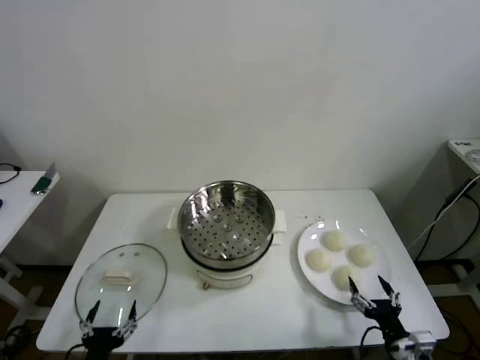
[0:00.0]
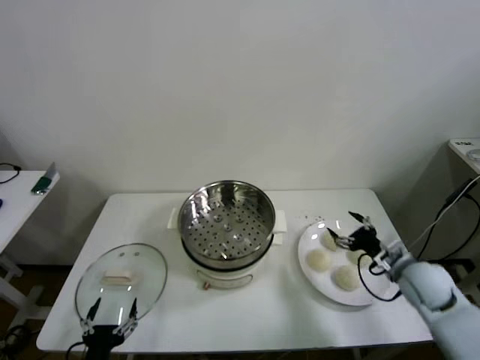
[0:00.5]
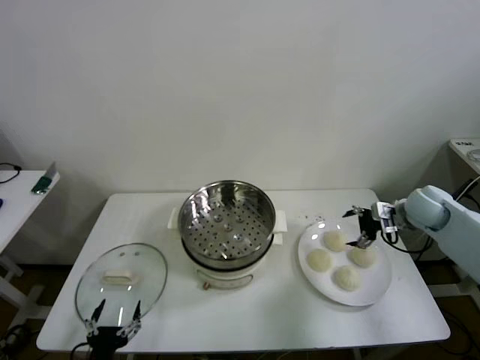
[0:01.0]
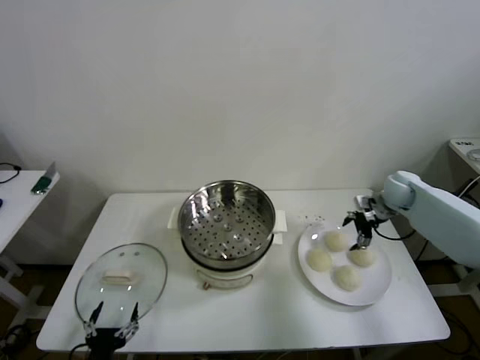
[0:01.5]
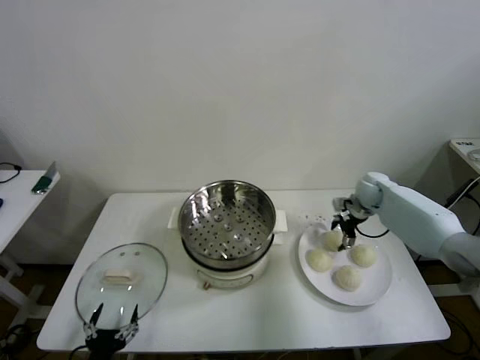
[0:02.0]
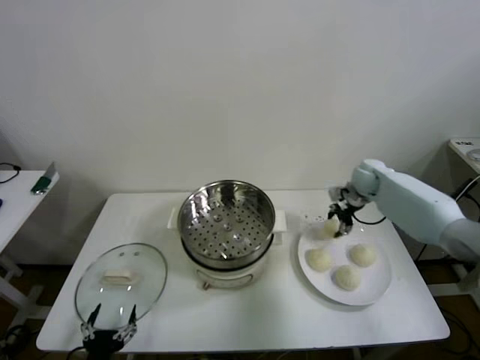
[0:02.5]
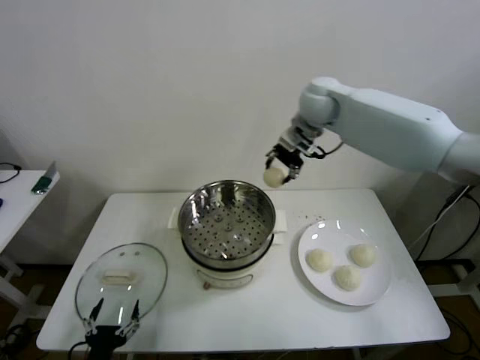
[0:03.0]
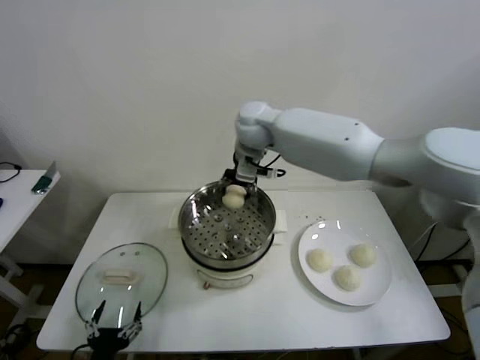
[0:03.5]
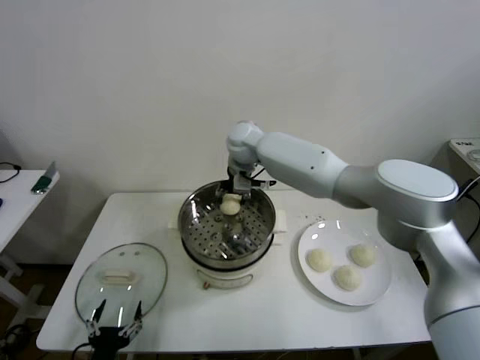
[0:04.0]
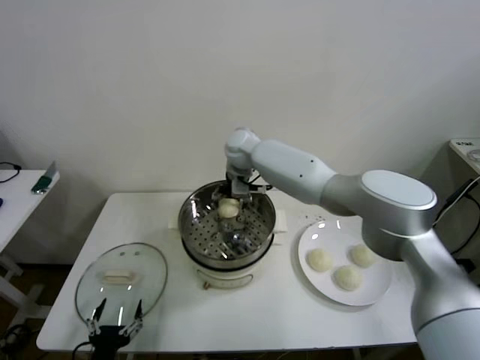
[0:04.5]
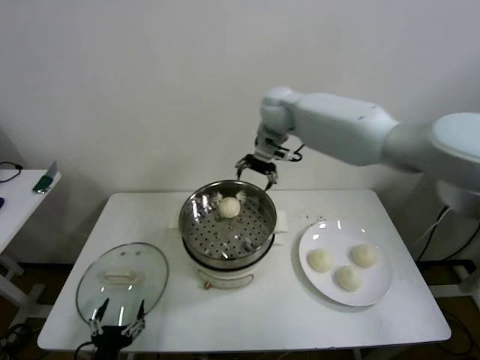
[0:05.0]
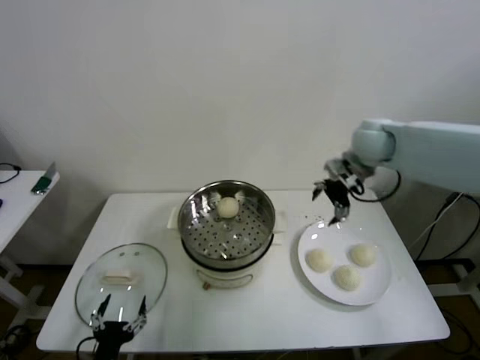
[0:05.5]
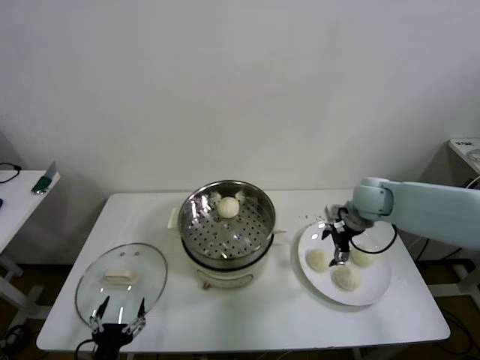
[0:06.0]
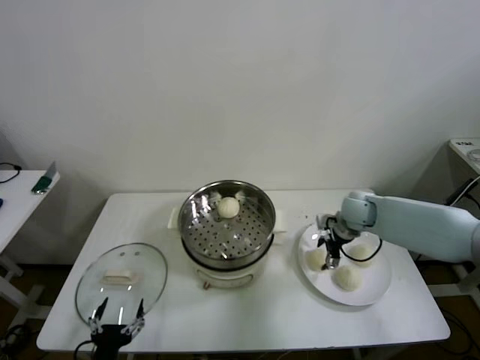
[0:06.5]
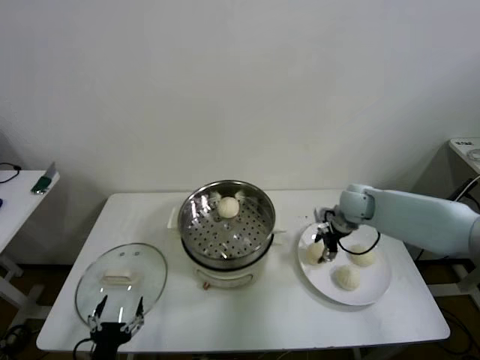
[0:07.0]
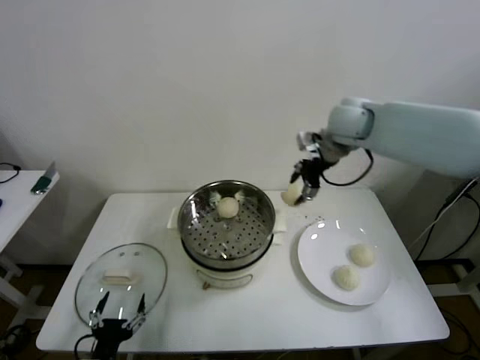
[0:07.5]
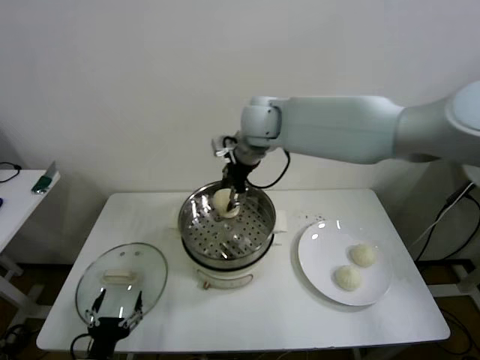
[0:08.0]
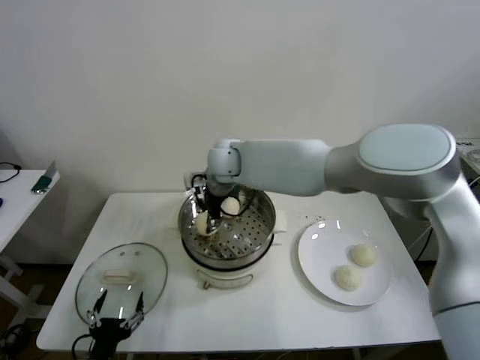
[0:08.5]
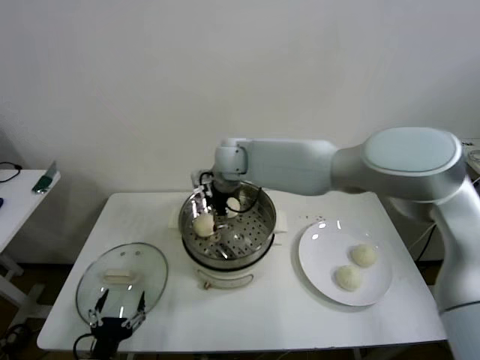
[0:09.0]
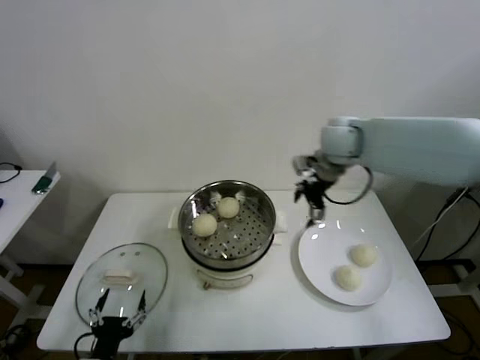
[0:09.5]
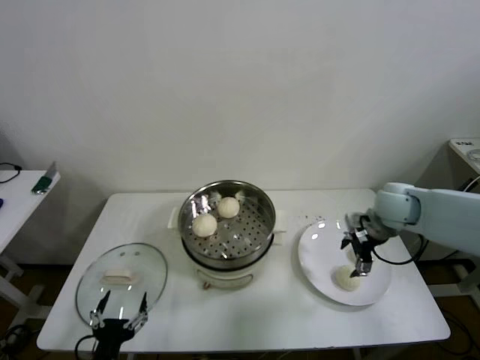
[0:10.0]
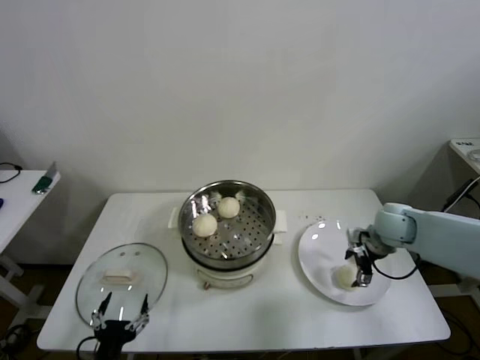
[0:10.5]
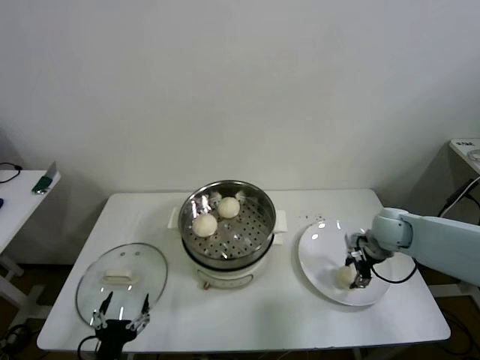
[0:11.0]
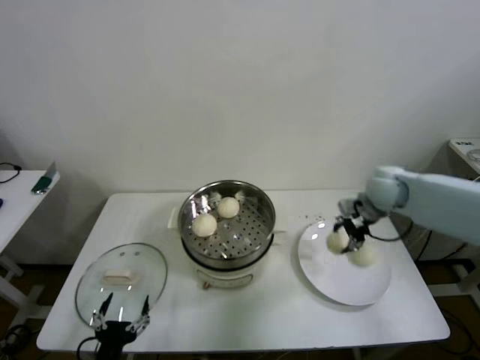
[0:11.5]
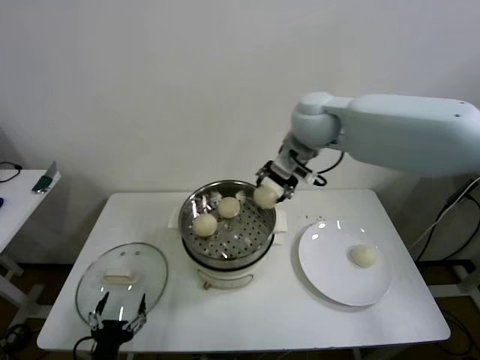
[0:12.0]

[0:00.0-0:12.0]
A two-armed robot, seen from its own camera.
Step, 0:00.0 to 0:02.0: Grasp the baozi in the plate with right gripper.
Step, 0:02.5 to 0:04.0: Place the baozi on the steamer with right gripper.
Step, 0:05.0 to 0:06.5: Grasp the baozi in the plate with right gripper.
Step, 0:07.0 to 0:08.5: Place the baozi on the steamer with right gripper.
Step, 0:09.0 to 0:10.5: Grasp the baozi in the plate with right gripper.
0:02.0 to 0:04.0: The right gripper travels to the left and upward by about 40 cm, and closes.
0:04.0 to 0:06.0: The right gripper travels to the right by roughly 30 cm, and opens its fingers.
0:06.0 to 0:08.0: The right gripper travels to the left and upward by about 35 cm, and closes.
0:08.0 to 0:10.0: The right gripper travels to the right and downward by about 35 cm, and opens its fingers.
0:10.0 to 0:12.0: The right gripper shifts some 30 cm to the left and upward, and closes.

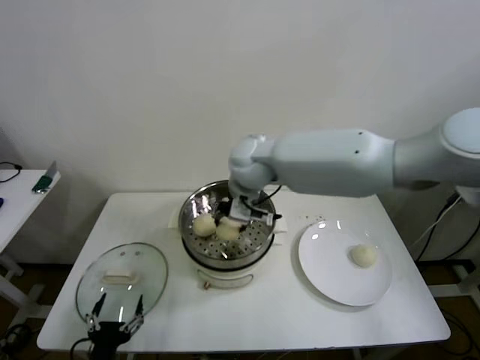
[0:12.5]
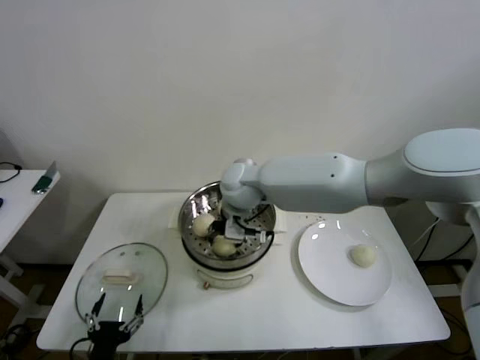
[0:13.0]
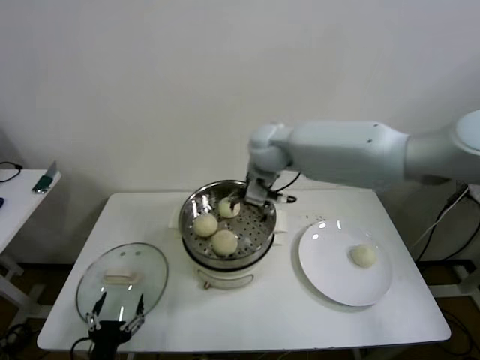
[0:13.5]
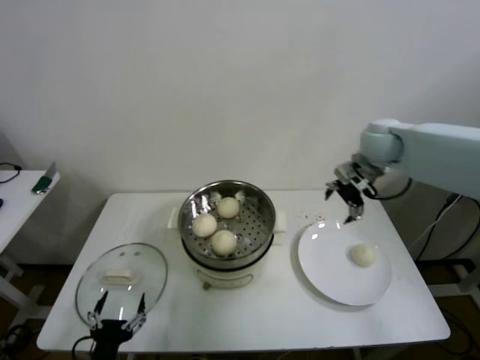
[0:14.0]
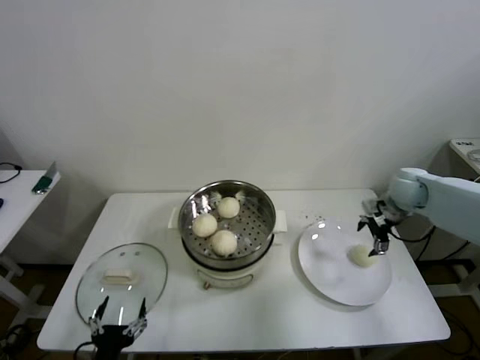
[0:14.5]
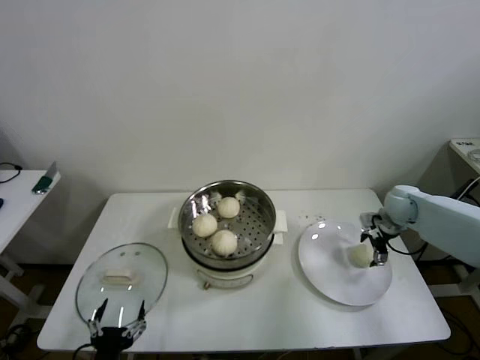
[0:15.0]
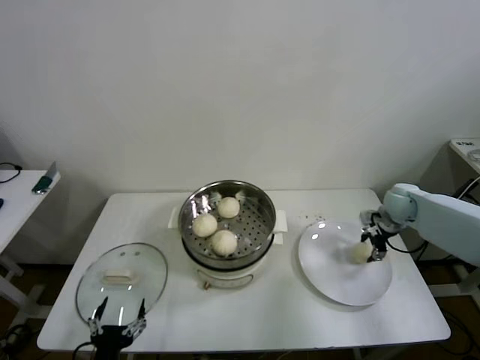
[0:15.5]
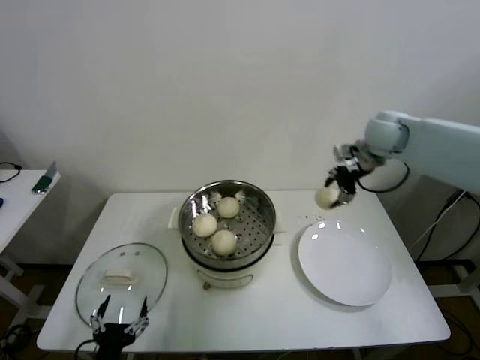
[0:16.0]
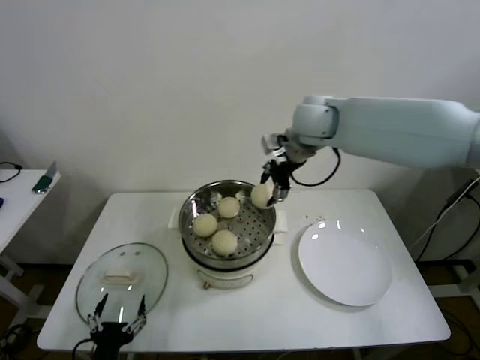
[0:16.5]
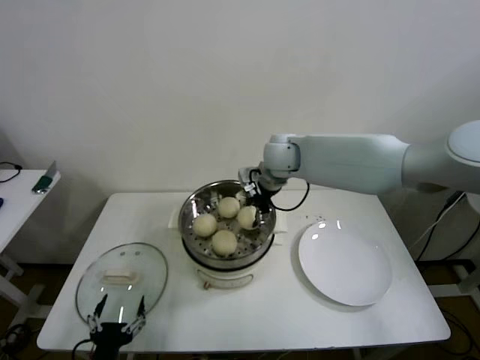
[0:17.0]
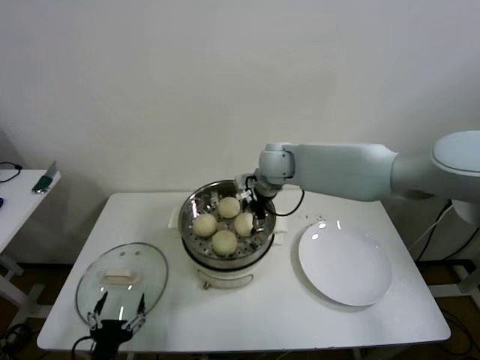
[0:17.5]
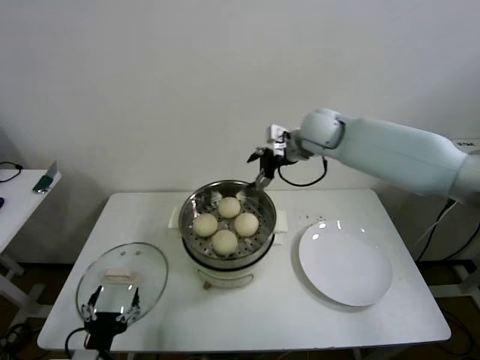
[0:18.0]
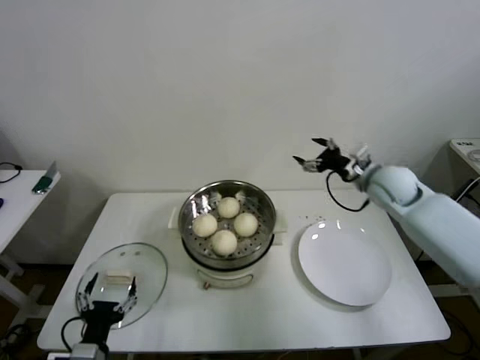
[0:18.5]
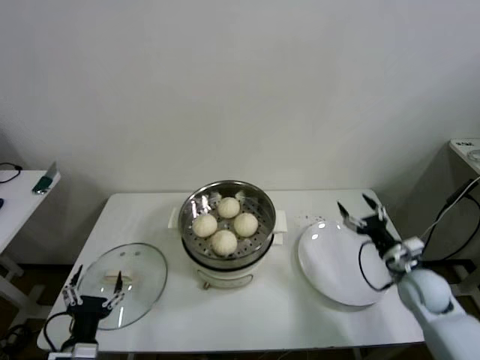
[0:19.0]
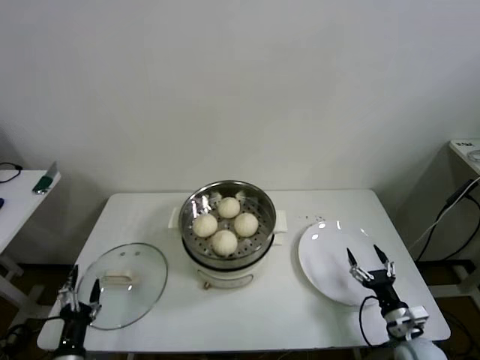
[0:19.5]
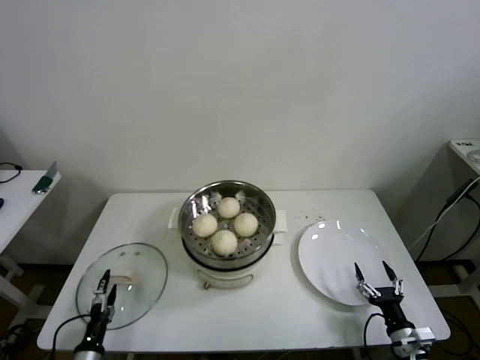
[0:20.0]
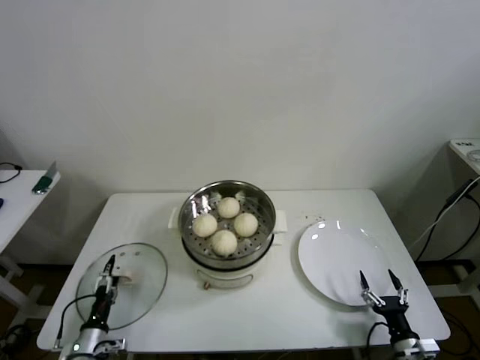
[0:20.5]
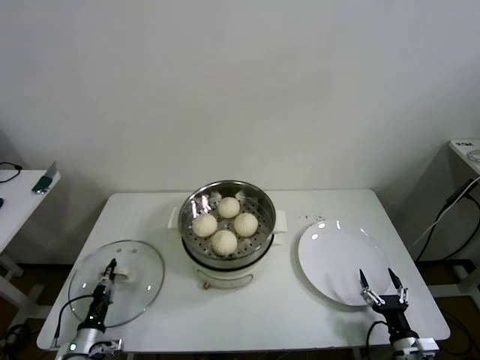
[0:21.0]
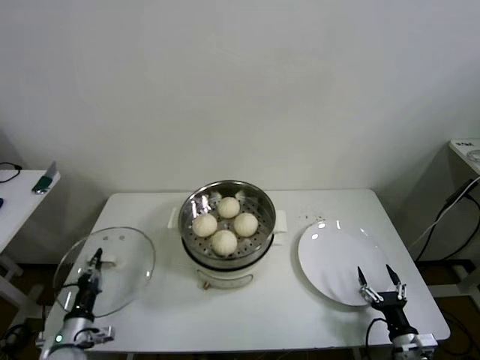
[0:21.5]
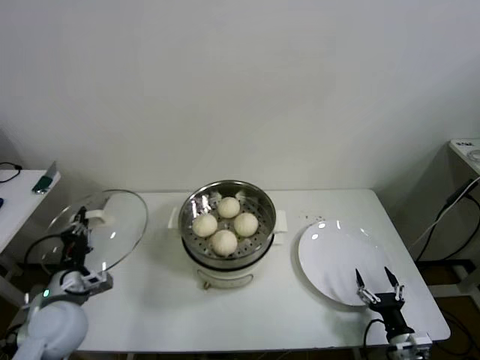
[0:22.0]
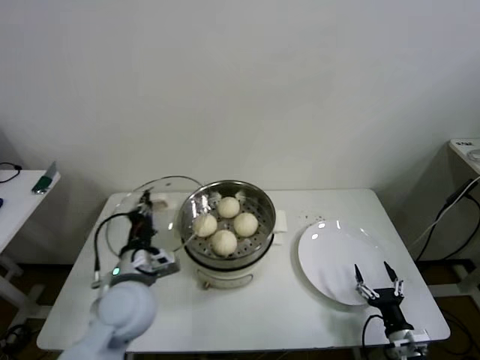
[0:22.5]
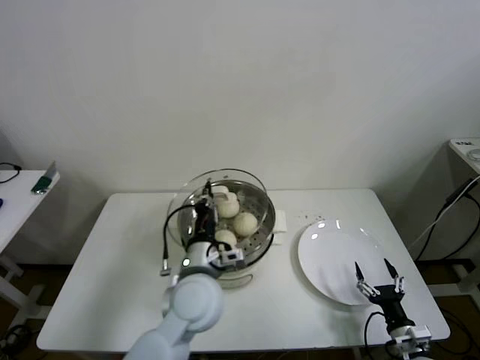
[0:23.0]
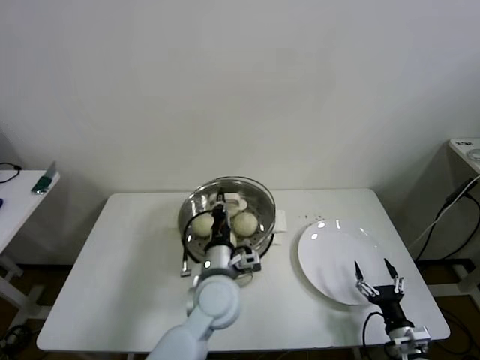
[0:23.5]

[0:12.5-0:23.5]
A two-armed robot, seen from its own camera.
Step, 0:13.5 to 0:15.0: Grasp the baozi in the plate with right gripper.
Step, 0:15.5 to 0:17.0: Place the baozi on the steamer with right gripper.
Step, 0:17.5 to 0:21.0: Grasp the pot lid with left gripper.
0:12.5 to 0:14.5: The right gripper moves to the right, about 40 cm, and opens up.
0:14.5 to 0:16.0: The right gripper travels upward and to the left by roughly 20 cm, and closes.
0:16.0 to 0:18.0: The right gripper shifts approximately 15 cm to the left, and opens.
0:18.0 to 0:20.0: The right gripper shifts approximately 60 cm downward, backward and to the right, while the left gripper travels downward and to the left by some 15 cm.
0:20.0 to 0:21.5: The left gripper goes roughly 5 cm forward, and closes.
0:21.5 to 0:23.5: The left gripper shifts roughly 40 cm to the right and upward.

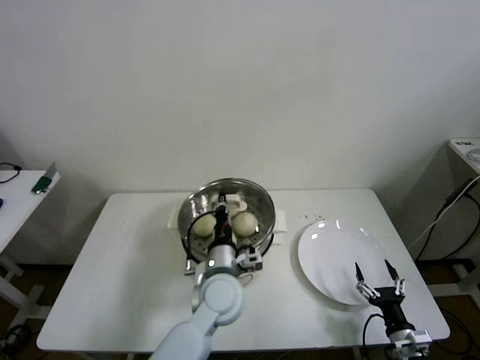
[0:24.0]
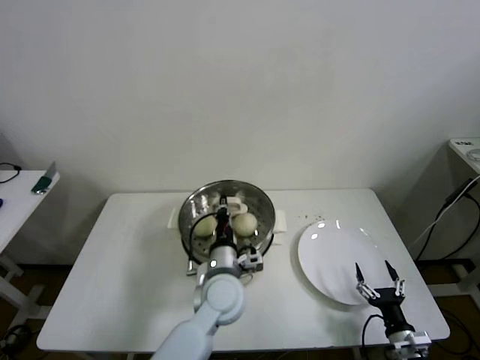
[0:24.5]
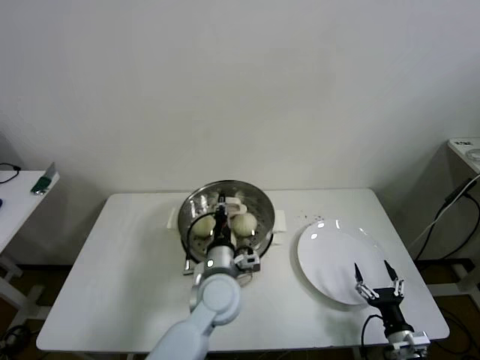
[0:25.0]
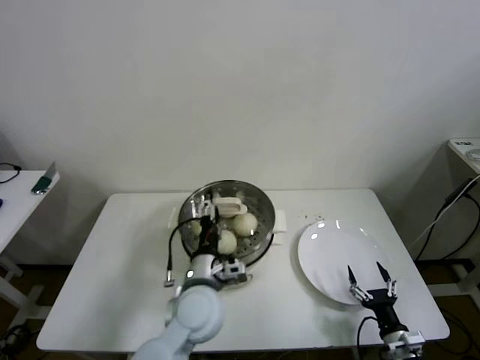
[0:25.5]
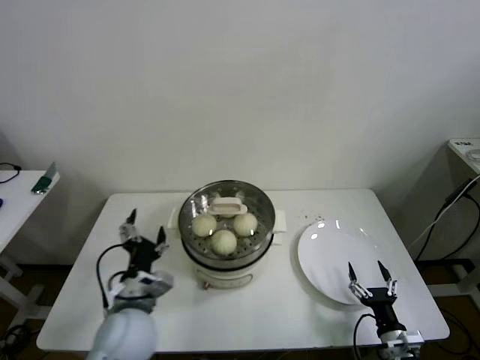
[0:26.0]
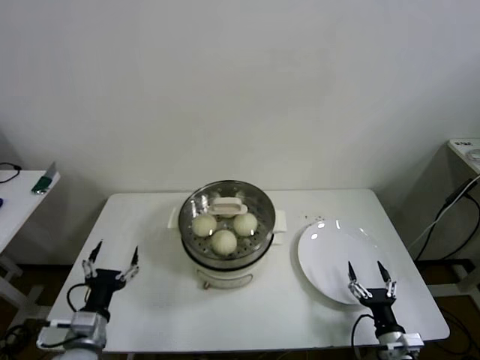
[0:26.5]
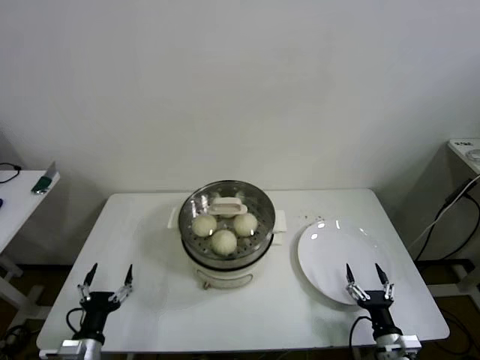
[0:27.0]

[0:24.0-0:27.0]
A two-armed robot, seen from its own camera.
0:24.0 to 0:25.5: The left gripper opens up.
0:25.5 to 0:27.0: The left gripper moves to the left, backward and downward, roughly 30 cm.
